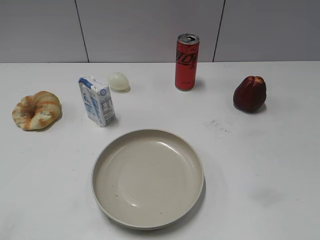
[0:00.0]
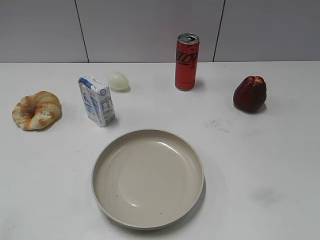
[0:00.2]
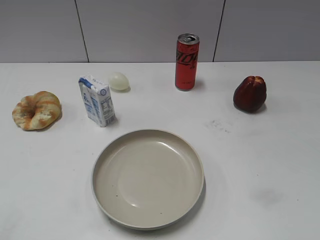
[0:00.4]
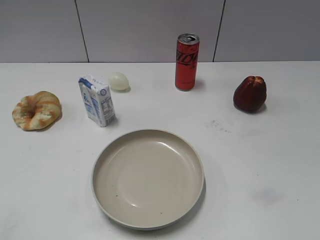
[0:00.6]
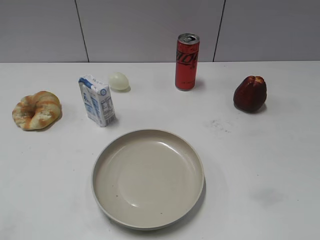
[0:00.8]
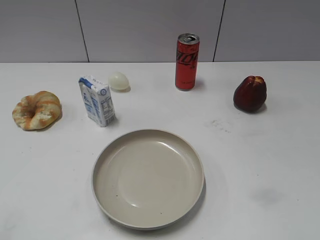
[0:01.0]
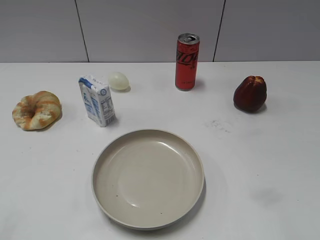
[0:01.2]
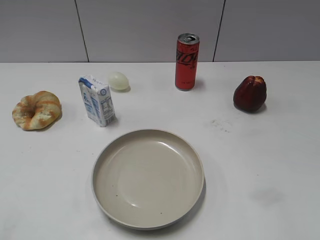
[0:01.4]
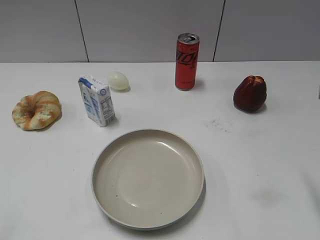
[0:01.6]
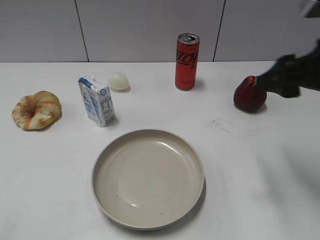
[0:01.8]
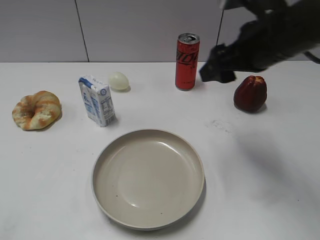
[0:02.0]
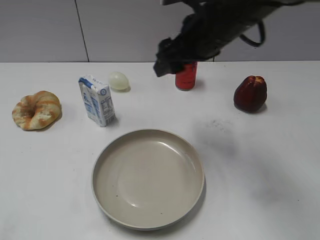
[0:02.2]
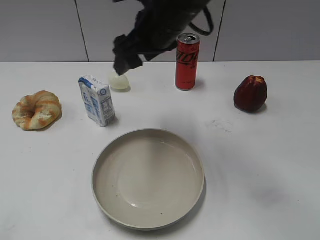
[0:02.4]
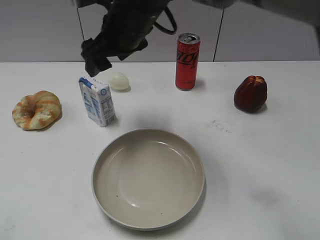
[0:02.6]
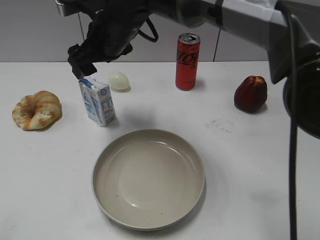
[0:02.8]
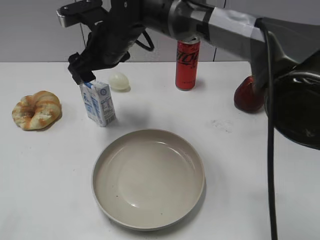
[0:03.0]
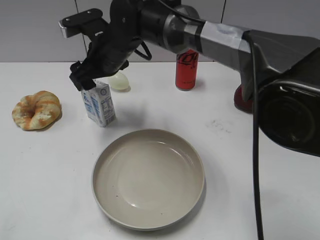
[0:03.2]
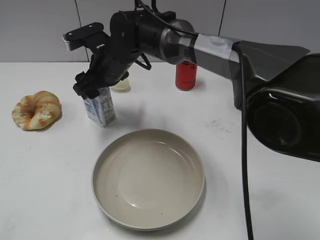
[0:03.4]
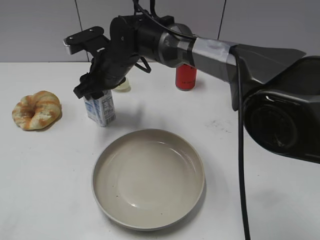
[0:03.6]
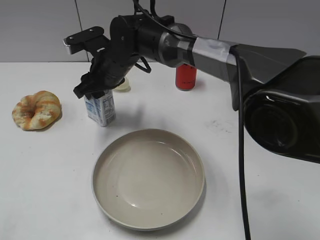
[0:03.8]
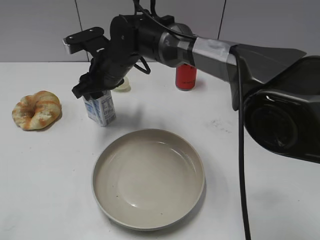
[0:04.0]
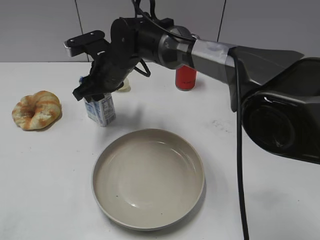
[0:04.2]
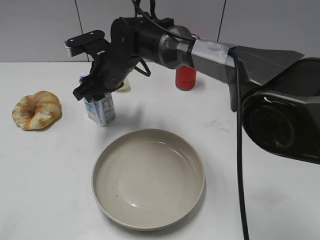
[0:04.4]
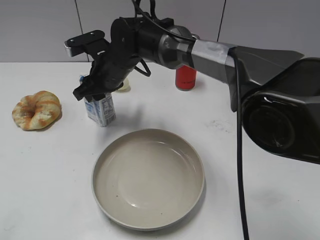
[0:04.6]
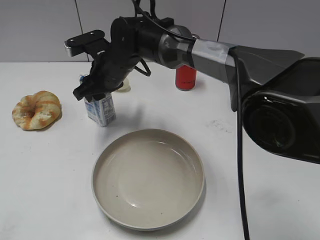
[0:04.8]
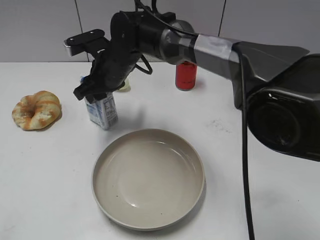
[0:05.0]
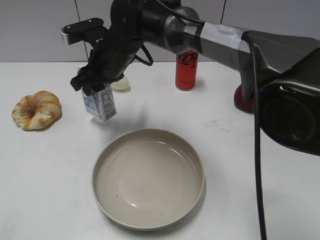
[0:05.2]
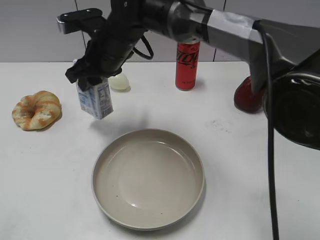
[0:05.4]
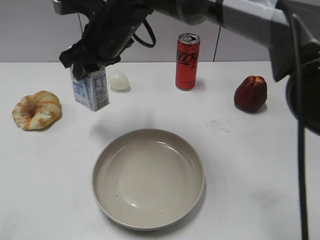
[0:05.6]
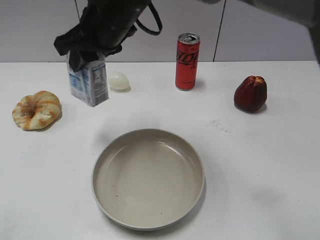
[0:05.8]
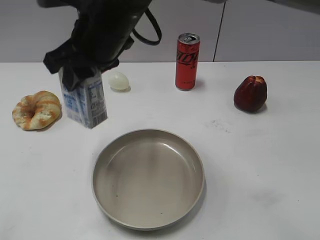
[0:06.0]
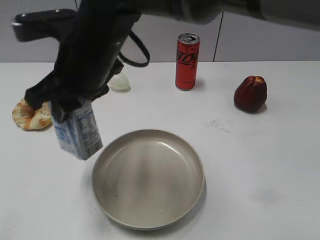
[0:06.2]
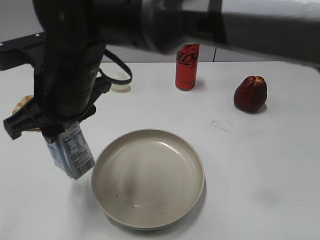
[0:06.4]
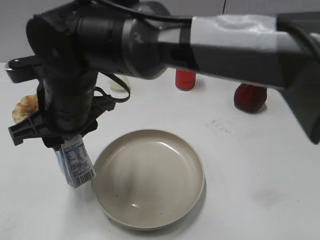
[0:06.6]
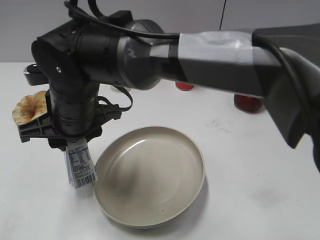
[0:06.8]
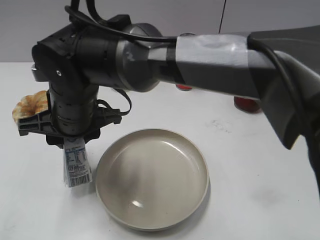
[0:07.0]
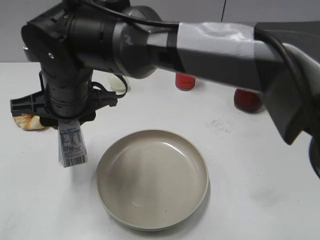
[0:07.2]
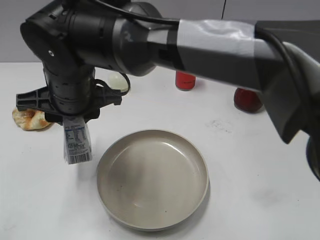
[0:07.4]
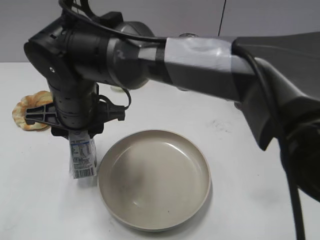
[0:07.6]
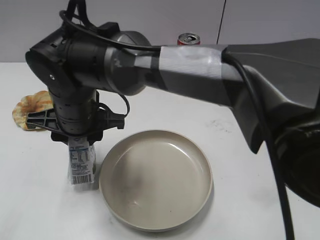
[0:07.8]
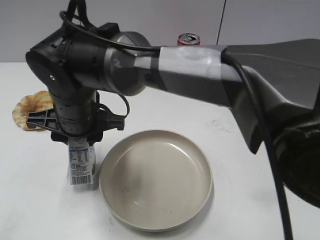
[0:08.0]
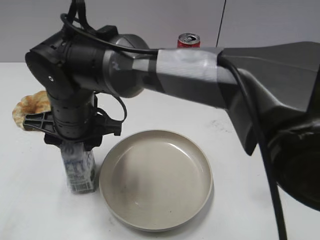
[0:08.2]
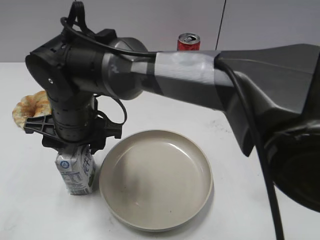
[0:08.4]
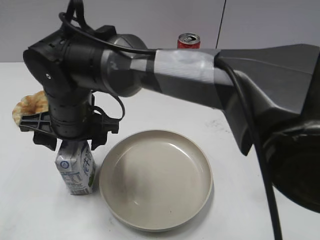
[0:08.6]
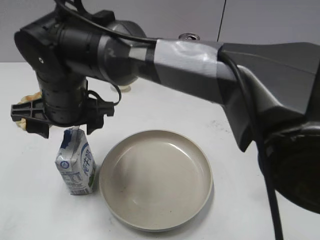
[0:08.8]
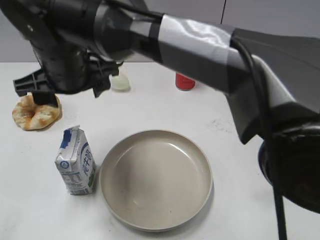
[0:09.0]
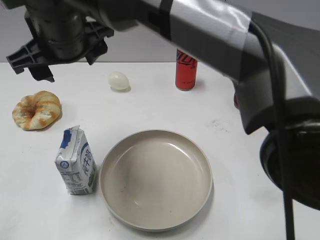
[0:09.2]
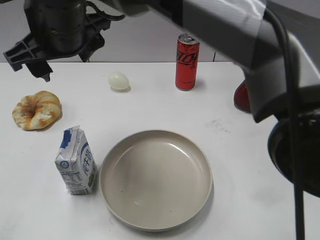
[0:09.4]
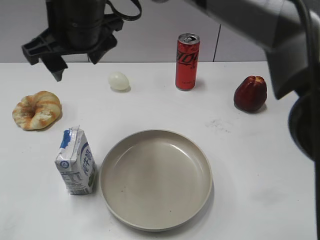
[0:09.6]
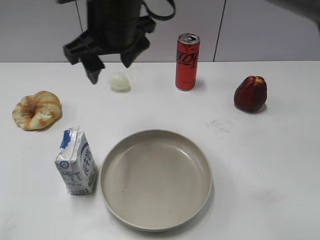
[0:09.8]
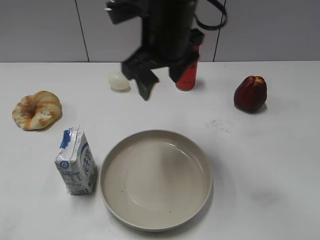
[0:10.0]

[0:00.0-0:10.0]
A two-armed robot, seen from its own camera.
Step, 0:00.6 to 0:04.0: Grasp the milk with right gripper.
Step, 0:04.2 to 0:08.6: Place the milk on the table with right gripper.
0:01.4 to 0:02.8: The right gripper travels to the left and forward by some 50 cm.
0:02.8 to 0:04.2: The right gripper shifts approximately 10 cm downward, and closes.
0:04.2 to 0:05.8: The right gripper moves upward and backward, about 15 cm.
0:05.8 to 0:07.2: The right gripper is displaced backward, downward and to the left by about 10 cm.
0:07.2 to 0:08.6: The right gripper opens up.
0:08.6 to 0:10.0: The right gripper heads to the right and upward, covering roughly 20 cm.

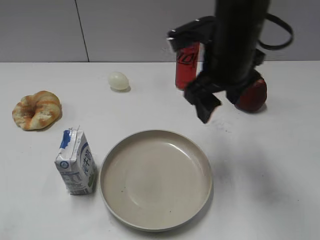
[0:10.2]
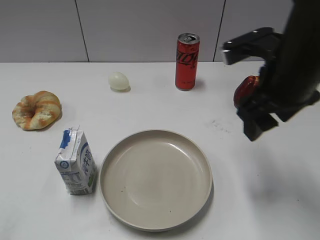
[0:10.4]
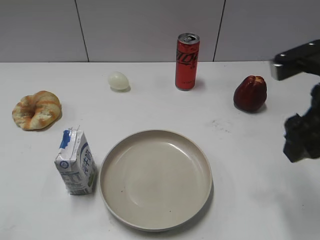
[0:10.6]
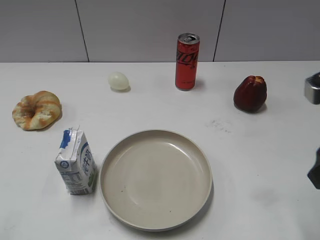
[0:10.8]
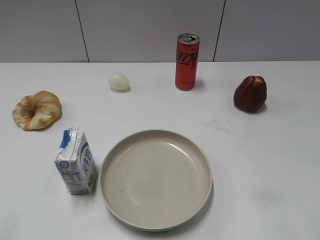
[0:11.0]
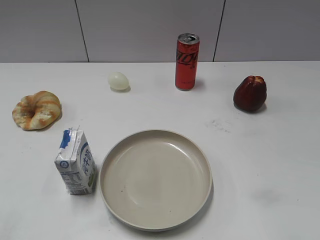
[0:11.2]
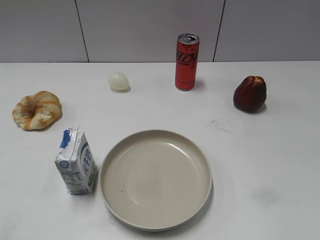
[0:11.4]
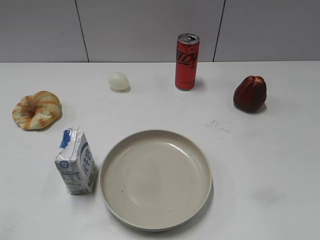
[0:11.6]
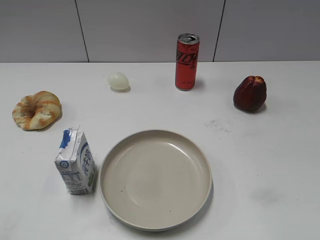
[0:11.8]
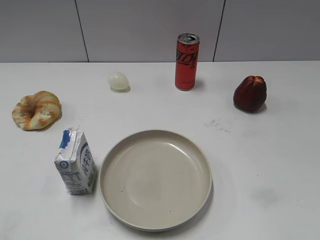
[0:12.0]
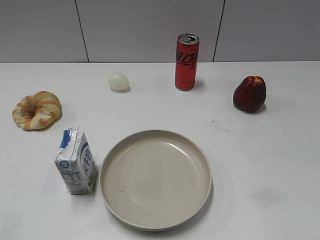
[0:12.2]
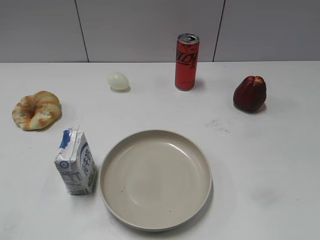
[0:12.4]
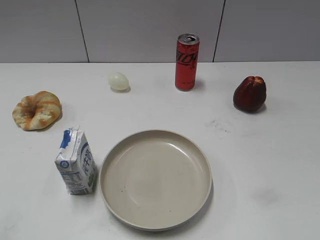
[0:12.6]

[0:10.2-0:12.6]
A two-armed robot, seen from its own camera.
0:10.2 to 0:11.4: The right gripper travels backward and to the right by approximately 30 cm.

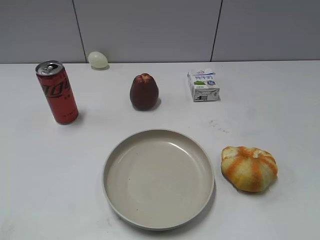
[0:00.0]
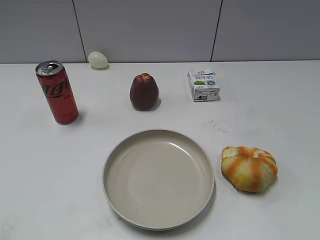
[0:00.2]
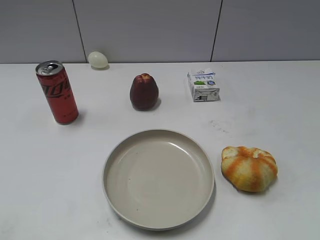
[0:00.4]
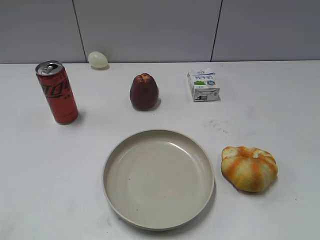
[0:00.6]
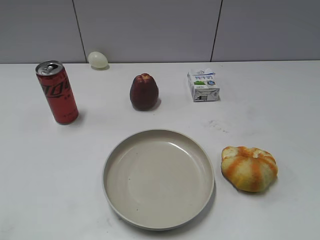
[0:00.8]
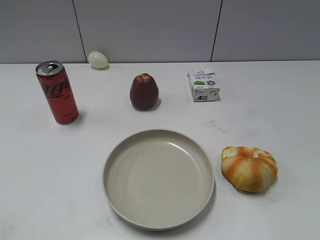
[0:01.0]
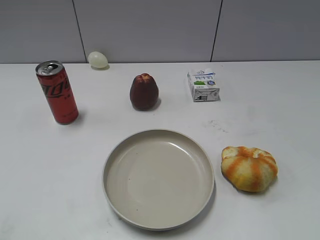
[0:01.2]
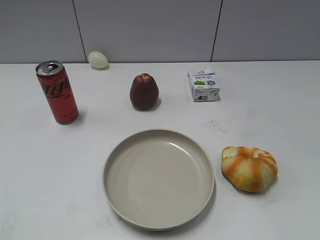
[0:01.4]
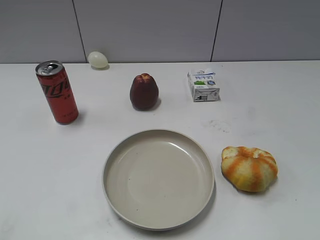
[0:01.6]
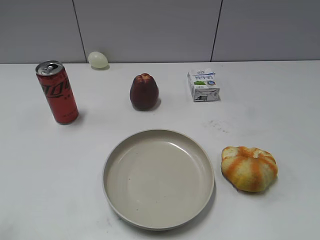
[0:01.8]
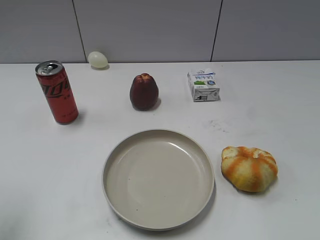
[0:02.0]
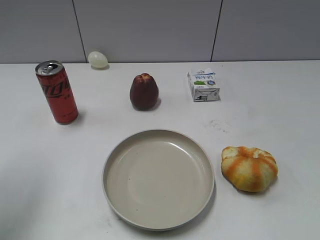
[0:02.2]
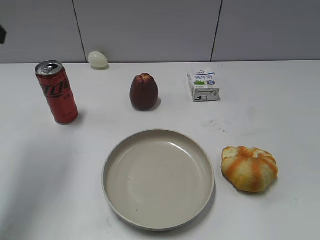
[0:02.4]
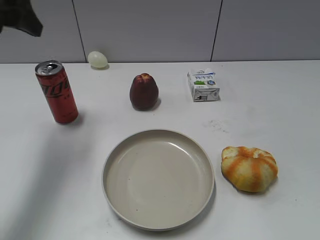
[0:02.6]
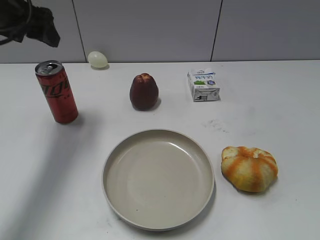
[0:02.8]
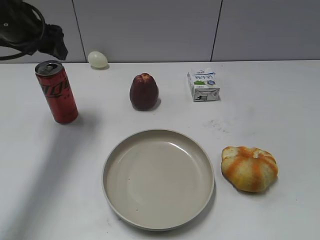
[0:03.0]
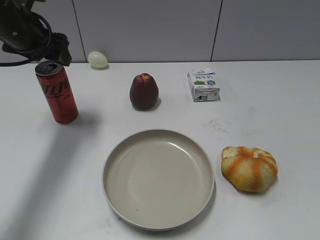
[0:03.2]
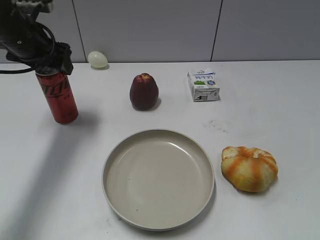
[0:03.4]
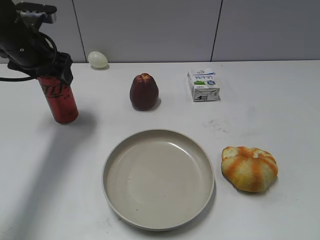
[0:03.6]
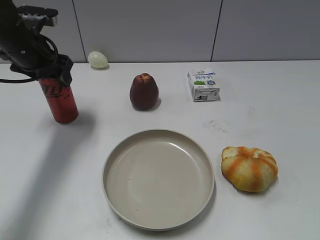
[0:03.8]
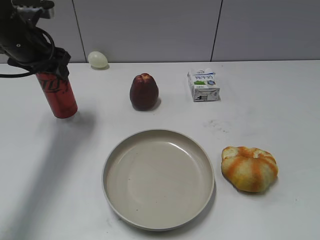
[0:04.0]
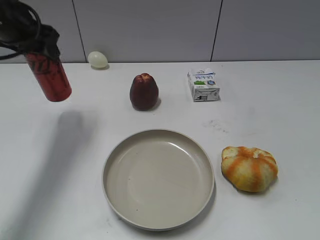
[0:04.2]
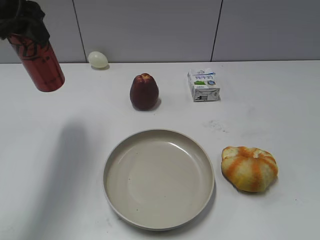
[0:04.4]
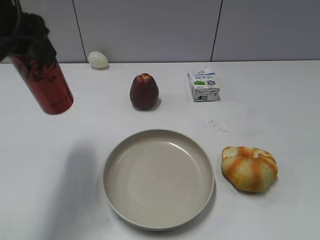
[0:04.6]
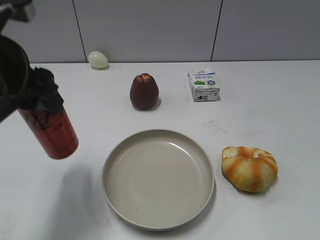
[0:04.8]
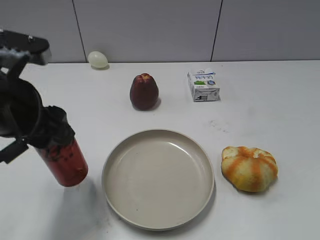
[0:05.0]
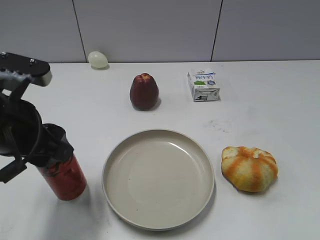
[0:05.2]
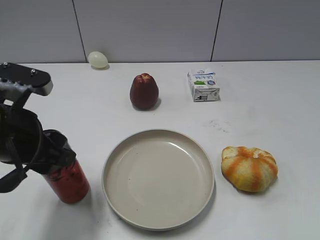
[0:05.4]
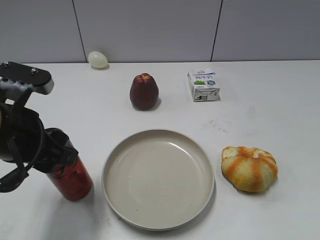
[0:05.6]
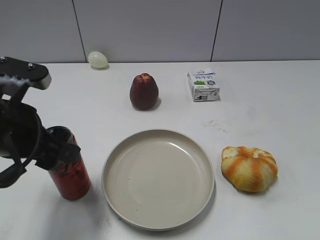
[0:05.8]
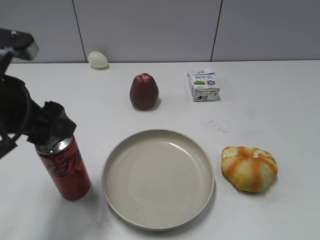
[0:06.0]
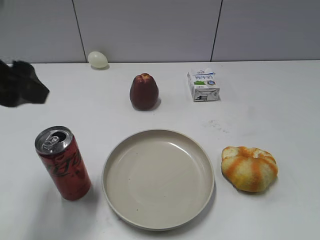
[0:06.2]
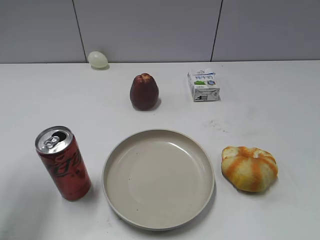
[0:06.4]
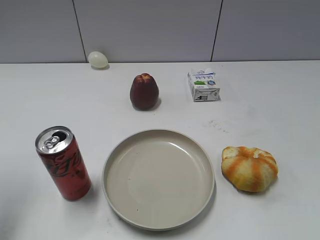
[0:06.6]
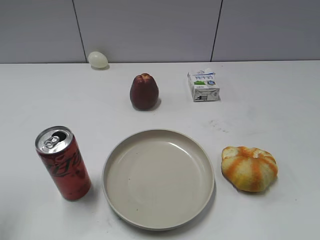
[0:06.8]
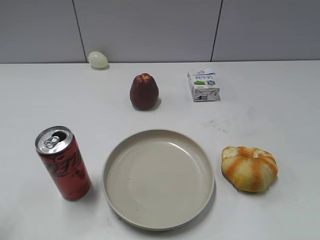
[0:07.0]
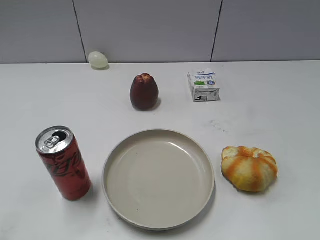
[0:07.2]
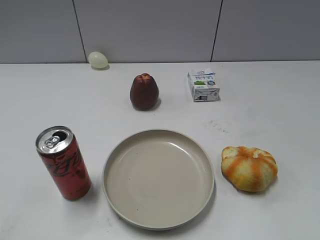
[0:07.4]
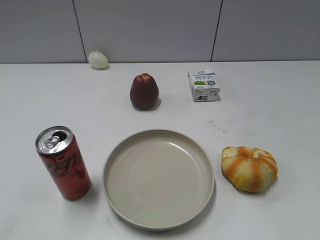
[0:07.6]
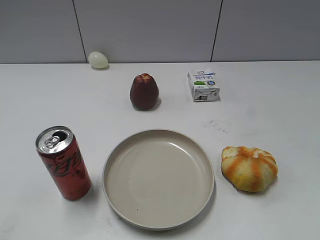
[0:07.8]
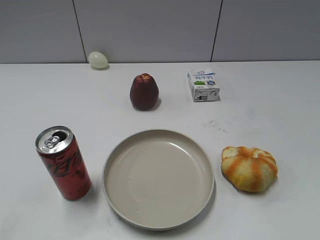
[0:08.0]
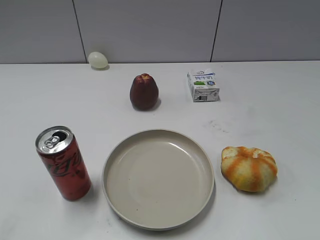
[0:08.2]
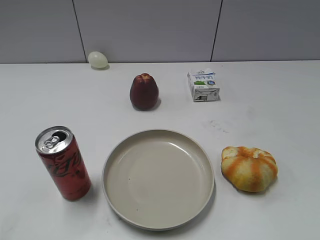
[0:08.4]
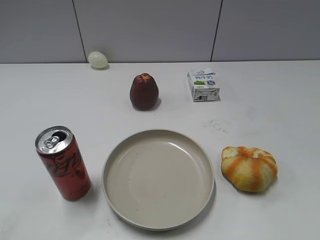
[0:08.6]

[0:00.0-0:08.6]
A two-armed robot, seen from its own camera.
Step, 0:01.4 to 0:03.8: Grasp the cola with left gripper.
Step, 0:04.0 to 0:06.0: Place the cola on the table with left gripper.
0:01.4 to 0:02.8: The left gripper shifts approximately 35 cm forward, and opens its fingers.
0:02.8 to 0:04.4: The left gripper reaches about 10 cm downward, then returns, and closes.
0:04.4 to 0:05.8: The left gripper shifts roughly 20 cm backward and downward, and opens its fingers.
0:05.8 to 0:07.2: The left gripper travels to the left, backward and upward by approximately 20 cm.
